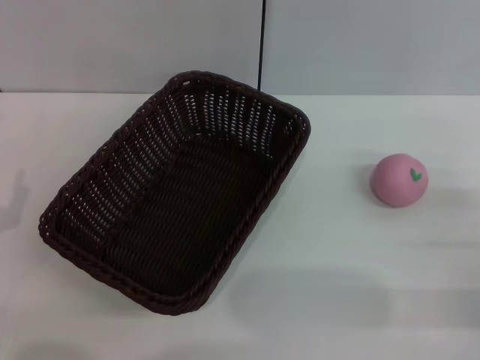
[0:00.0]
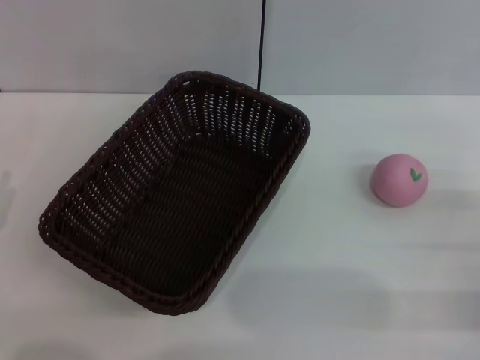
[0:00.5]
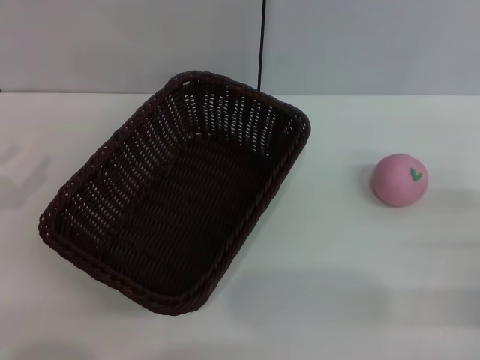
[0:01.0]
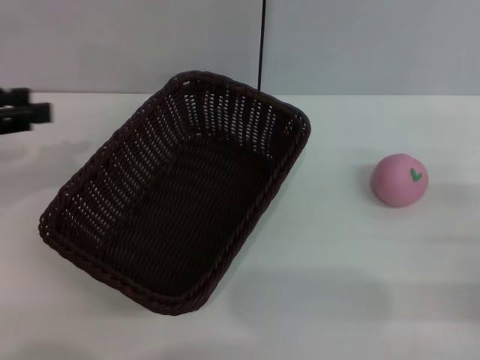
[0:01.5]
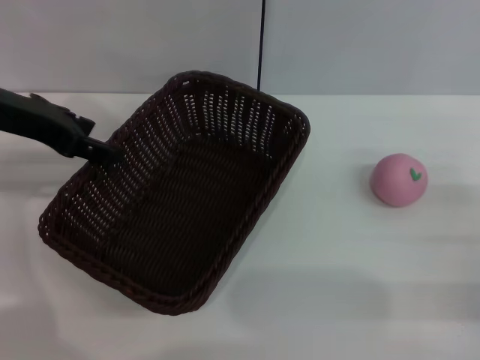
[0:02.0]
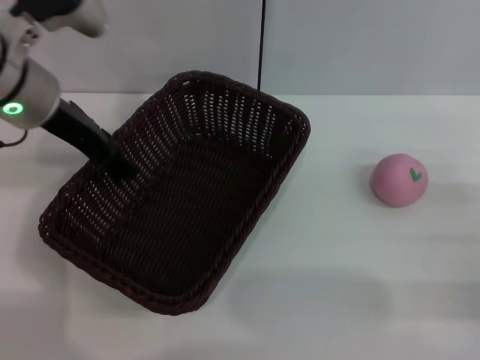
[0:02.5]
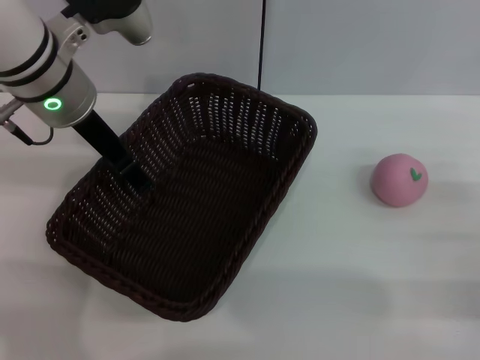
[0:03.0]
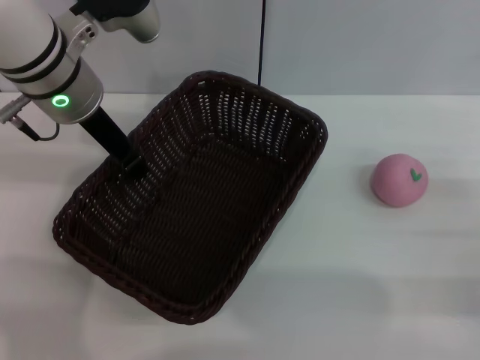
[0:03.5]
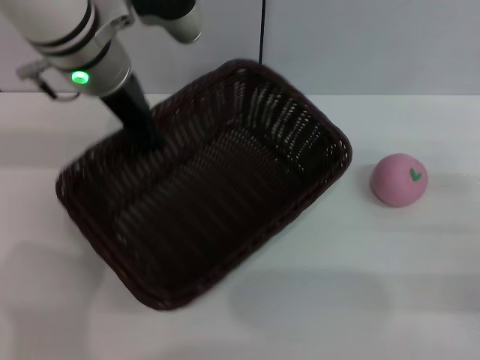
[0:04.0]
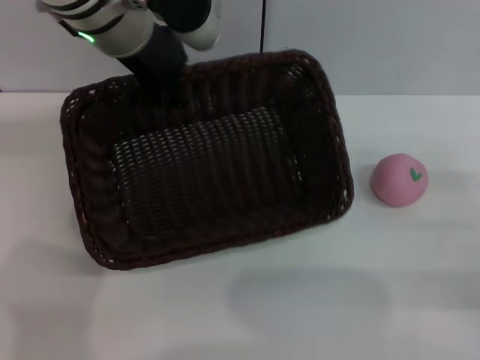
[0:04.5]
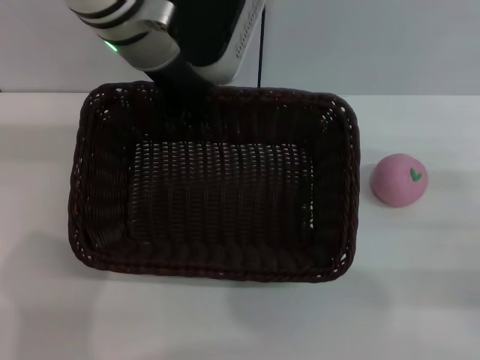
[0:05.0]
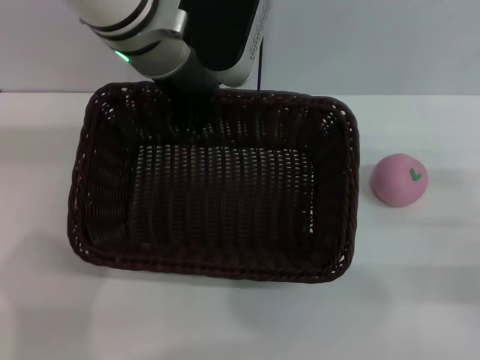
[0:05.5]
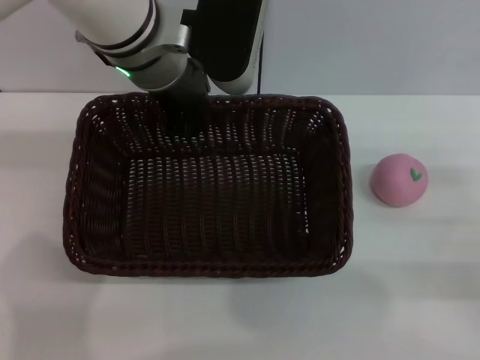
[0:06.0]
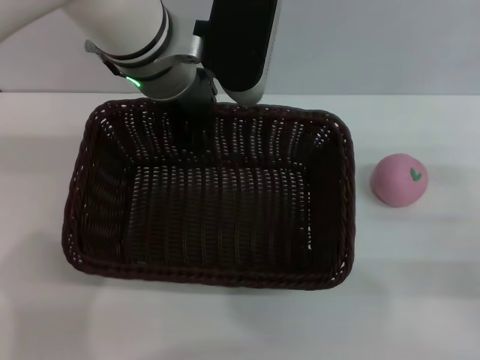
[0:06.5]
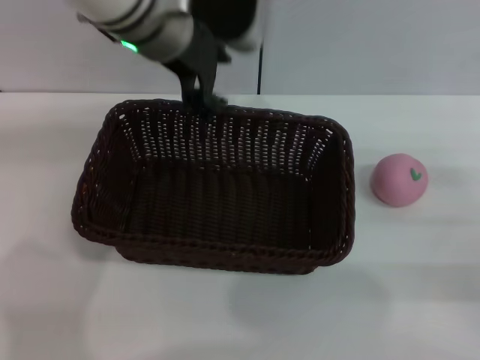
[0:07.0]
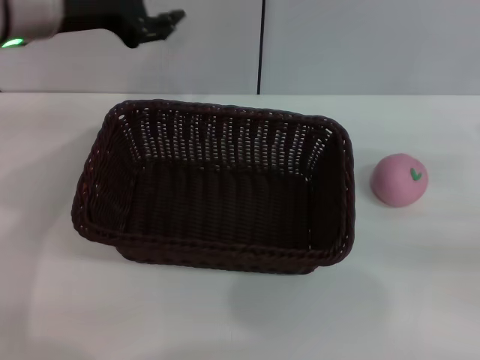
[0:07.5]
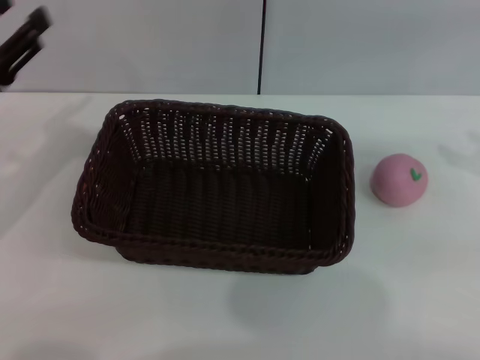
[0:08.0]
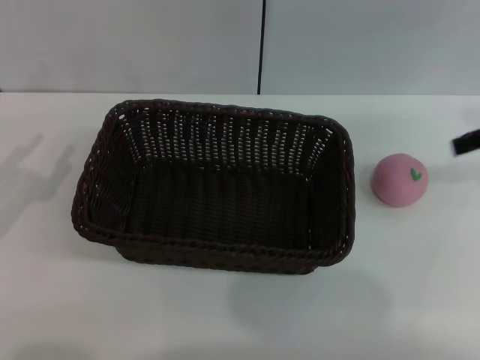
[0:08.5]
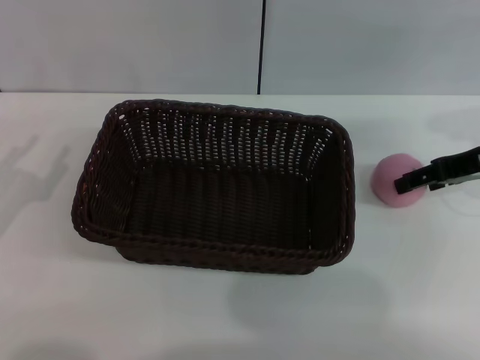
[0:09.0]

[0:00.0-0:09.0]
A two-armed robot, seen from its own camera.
Step, 0:00.0 to 0:04.0: Pick up the dark basket with the left gripper.
Step, 0:05.0 to 0:06.5: Place the dark basket in the center of view with the right gripper.
0:00.0 to 0:02.0: The left gripper goes approximately 25 cm upward and forward.
0:02.0 to 0:04.5: The left gripper shifts some 15 cm to the right, and closes up.
0:04.5 to 0:07.0: The left gripper opens its fingers.
0:07.0 to 0:09.0: The right gripper is displaced forward, upward and to the left by some 15 cm, while the left gripper shifts about 35 cm to the left, backward and downward.

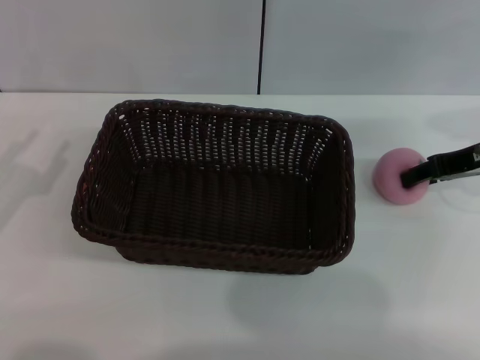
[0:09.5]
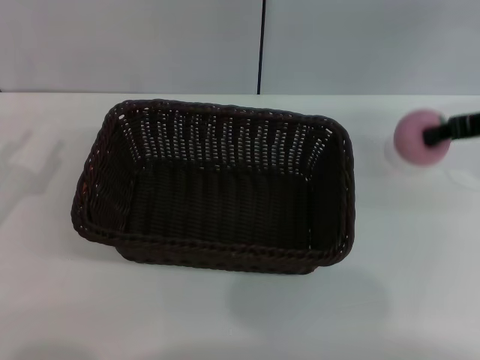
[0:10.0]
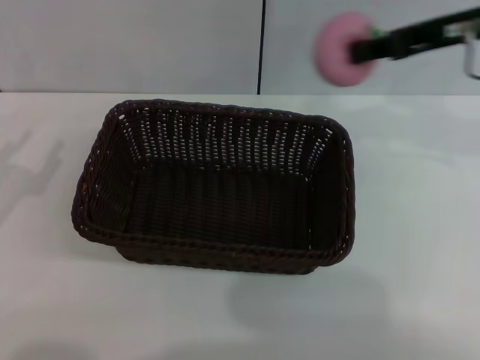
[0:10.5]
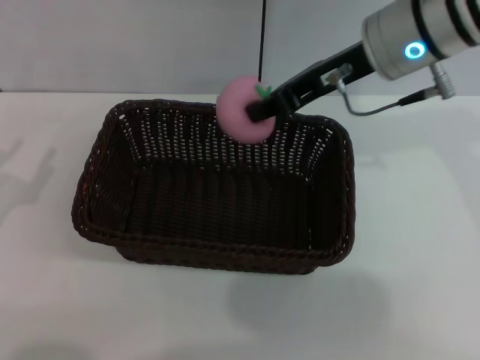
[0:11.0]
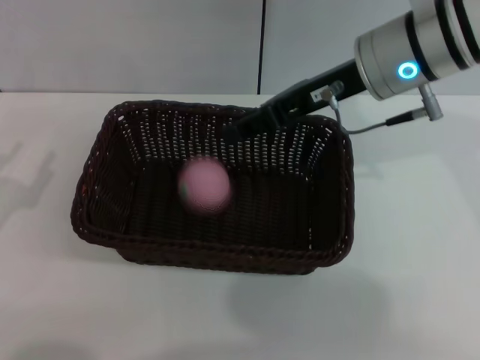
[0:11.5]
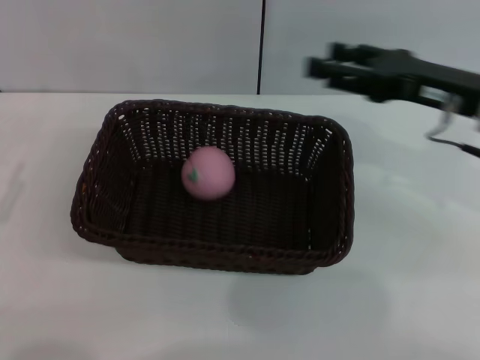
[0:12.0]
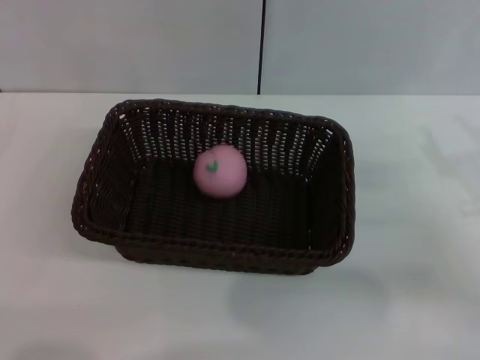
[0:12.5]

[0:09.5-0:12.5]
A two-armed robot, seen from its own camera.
0:09.5 to 0:11.0: The right gripper heads to the left and upward, covering roughly 20 cm, and closes its fingers.
0:11.0 to 0:12.5: The left gripper changes place by approximately 5 cm. Meanwhile the right gripper travels to the right, downward and backward by approximately 25 cm, and opens up.

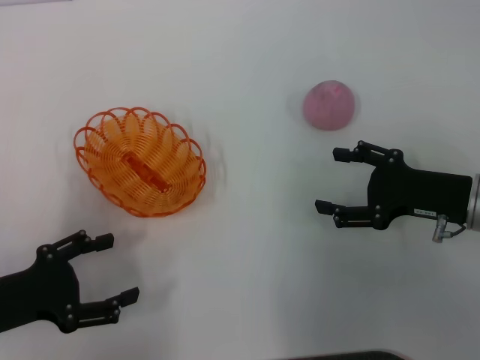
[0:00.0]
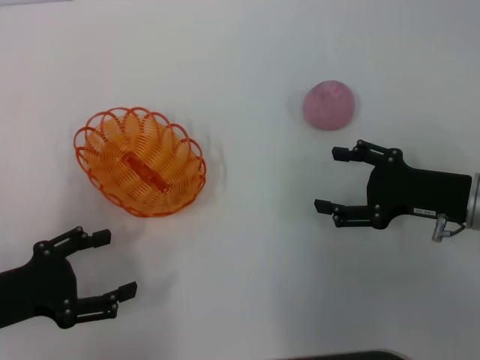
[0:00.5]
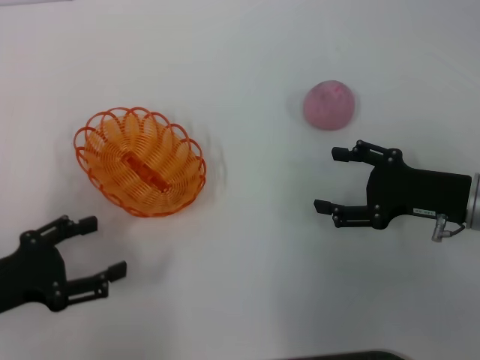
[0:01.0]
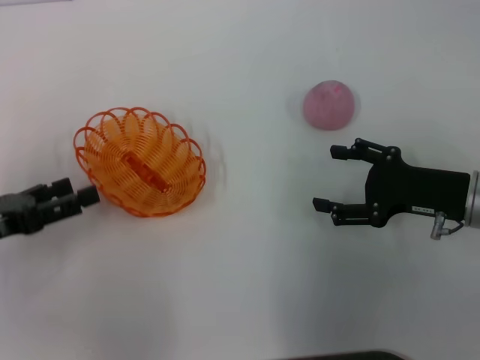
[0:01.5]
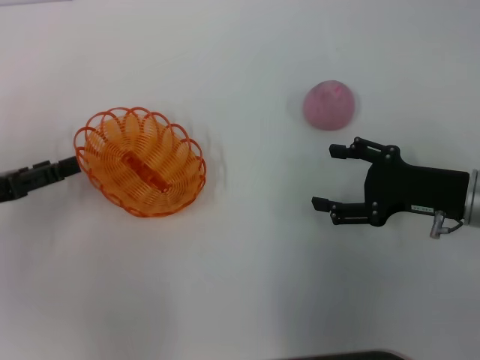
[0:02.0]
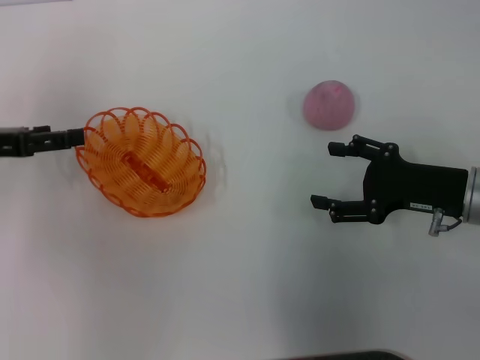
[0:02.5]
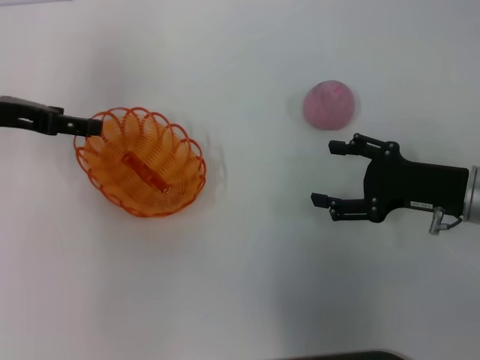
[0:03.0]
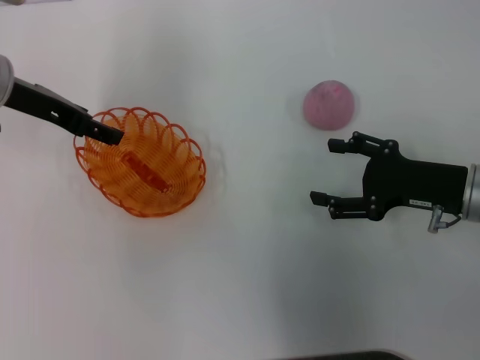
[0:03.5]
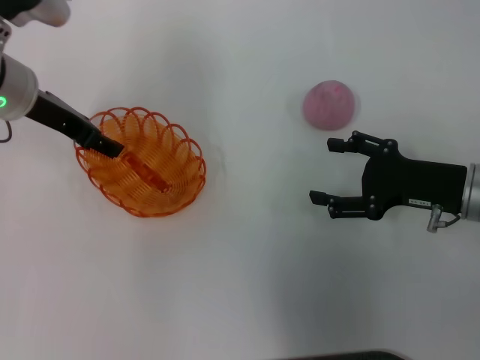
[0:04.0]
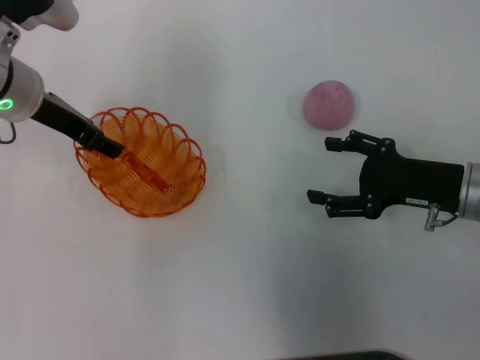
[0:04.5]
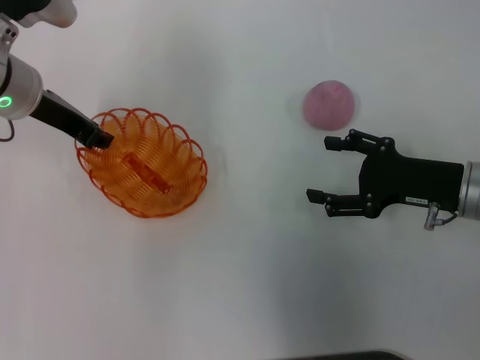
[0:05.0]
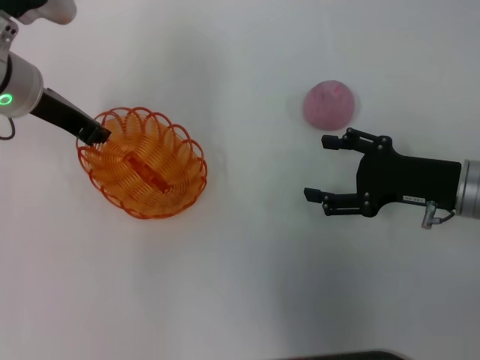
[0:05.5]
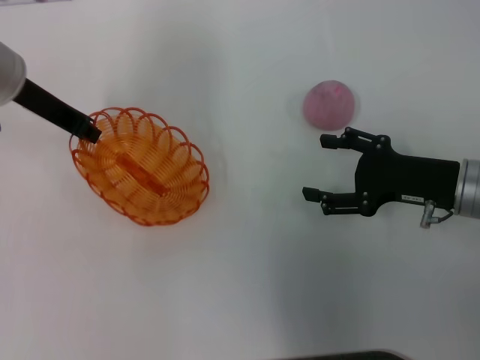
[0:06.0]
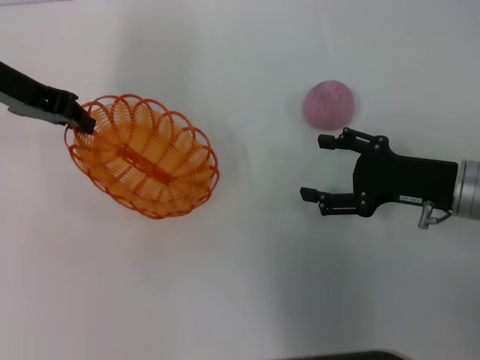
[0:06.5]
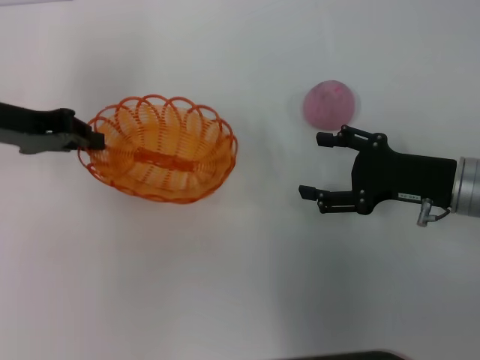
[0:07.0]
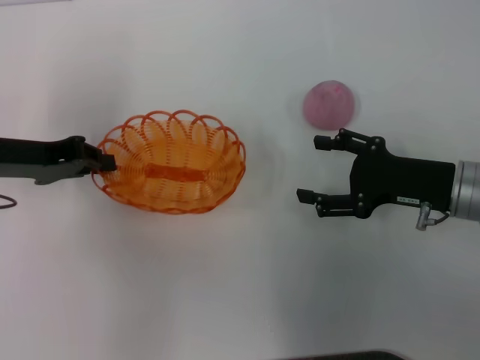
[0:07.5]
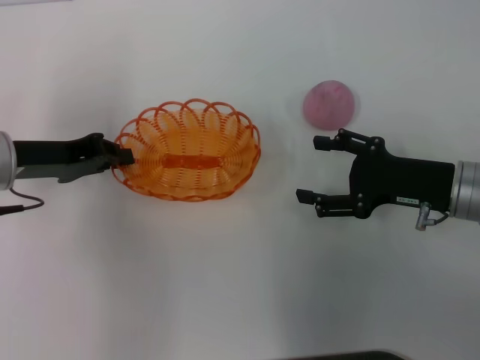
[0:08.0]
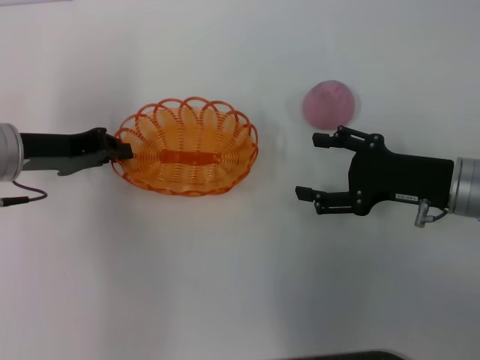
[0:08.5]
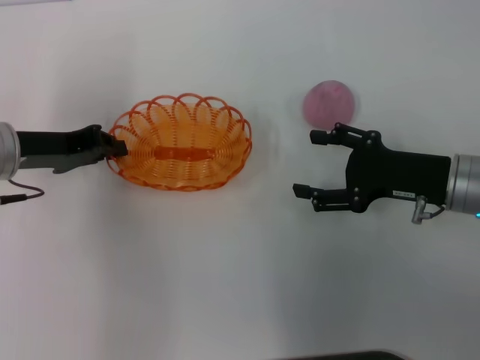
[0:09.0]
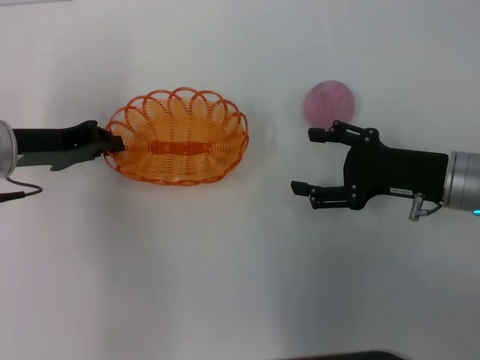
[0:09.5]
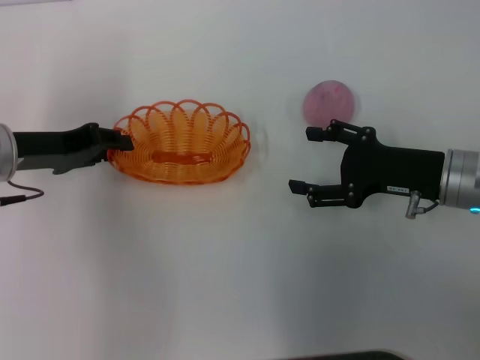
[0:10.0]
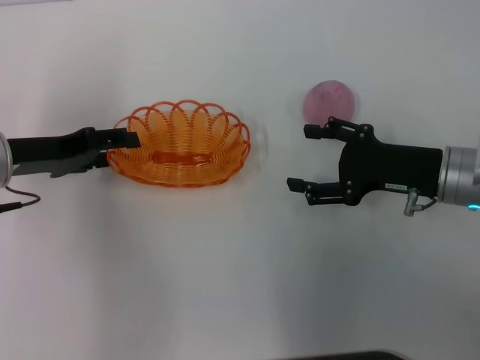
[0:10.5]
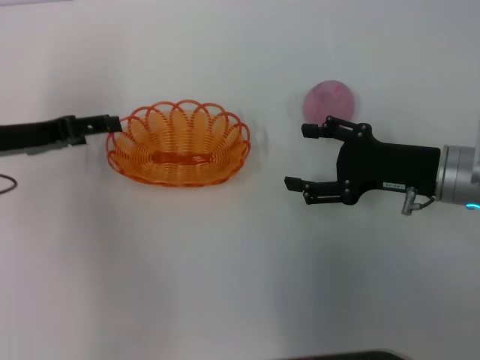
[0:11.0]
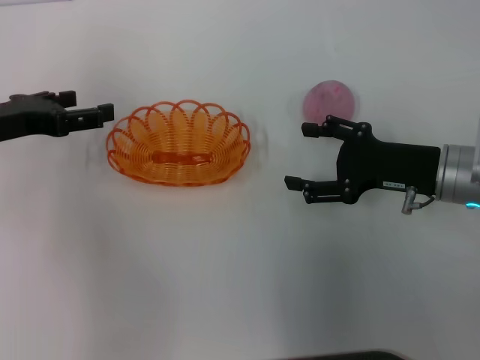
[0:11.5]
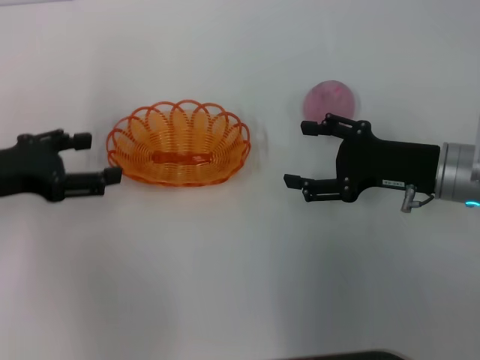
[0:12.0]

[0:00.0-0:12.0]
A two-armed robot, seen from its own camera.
Step, 0:00.0 to 0:06.0: Pick up the basket with the left gripper.
Step, 0:06.5 to 0:11.0: Place the basket in the center of view with the left gripper.
0:00.0 to 0:02.0: The left gripper goes roughly 5 cm forward.
0:02.0 to 0:04.0: The left gripper heads forward, to the right and upward, covering about 20 cm.
0:04.0 to 0:06.0: The left gripper closes its fingers.
0:06.0 to 0:08.0: The left gripper heads backward and downward, covering roughly 10 cm.
0:08.0 to 0:10.0: The grippers move only a little.
0:10.0 to 0:12.0: The left gripper shifts by approximately 5 cm, and opens its fingers.

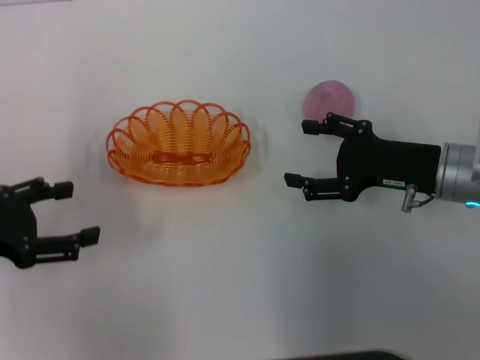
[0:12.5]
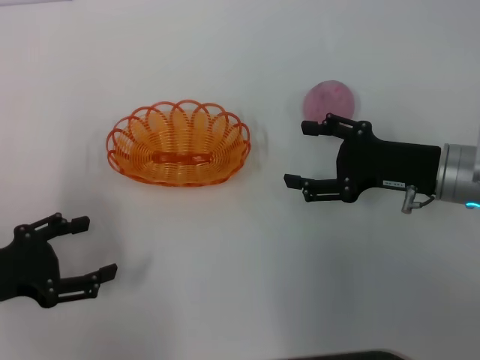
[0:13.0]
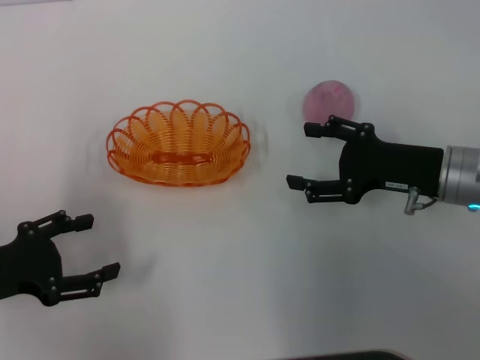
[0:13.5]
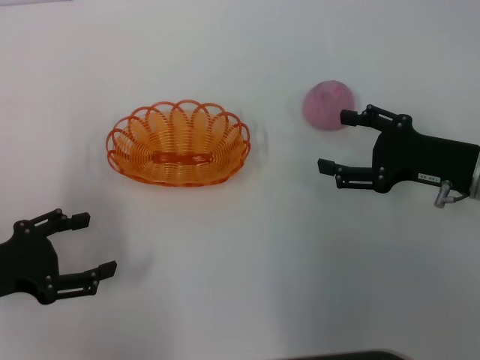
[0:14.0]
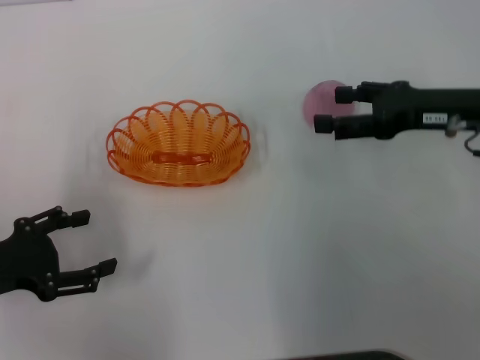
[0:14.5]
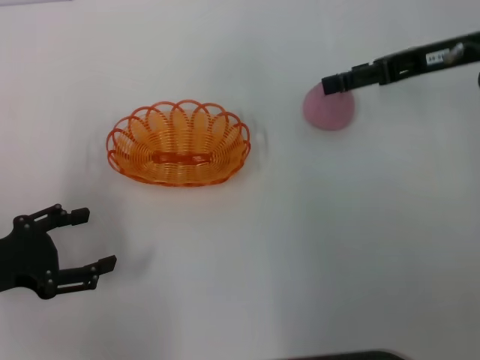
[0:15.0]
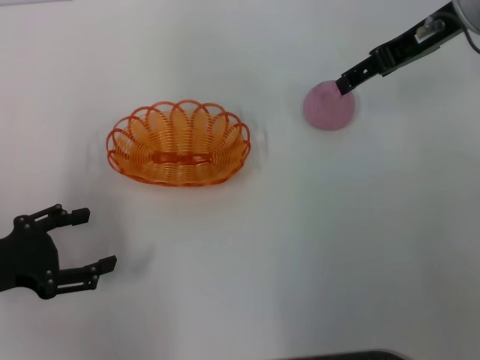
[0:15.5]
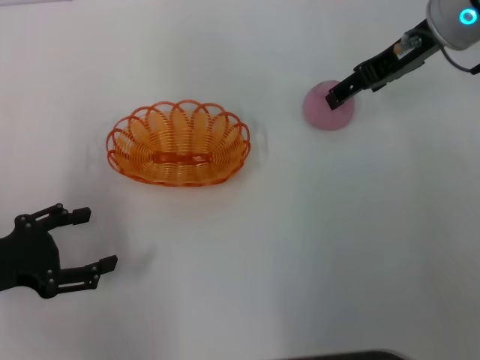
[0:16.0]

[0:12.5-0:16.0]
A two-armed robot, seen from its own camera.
0:12.5 to 0:14.5: The right gripper heads upward, covering about 5 cm.
0:14.5 to 0:16.0: The right gripper travels forward, upward and to the left by about 10 cm.
